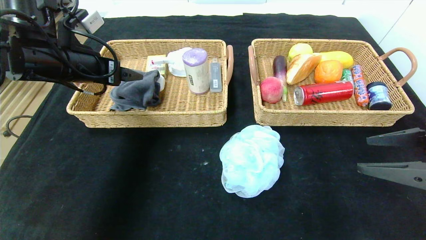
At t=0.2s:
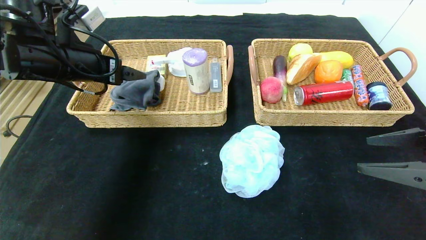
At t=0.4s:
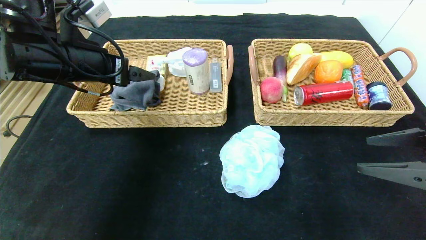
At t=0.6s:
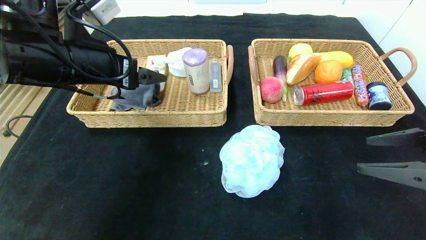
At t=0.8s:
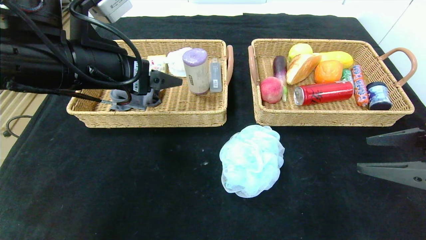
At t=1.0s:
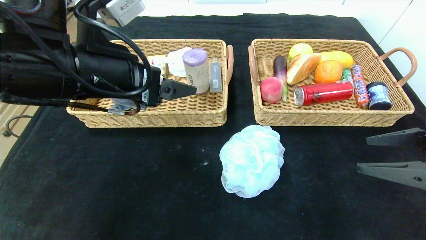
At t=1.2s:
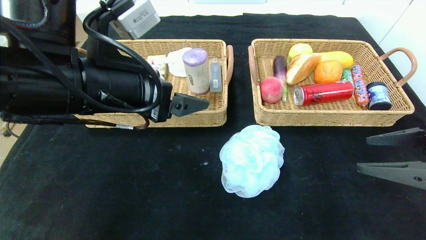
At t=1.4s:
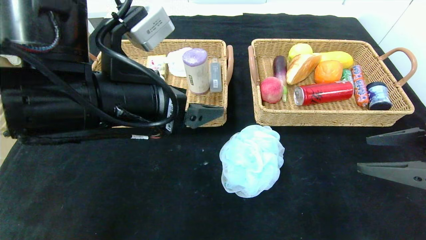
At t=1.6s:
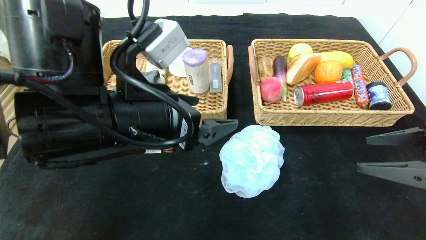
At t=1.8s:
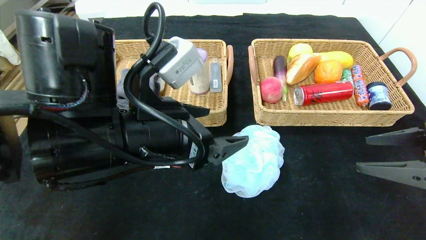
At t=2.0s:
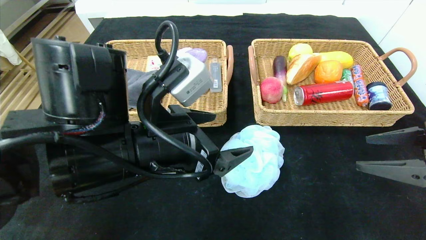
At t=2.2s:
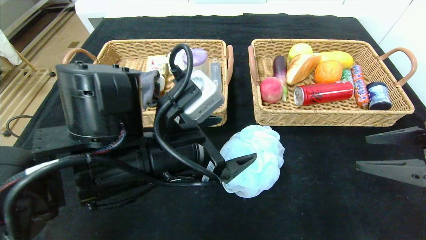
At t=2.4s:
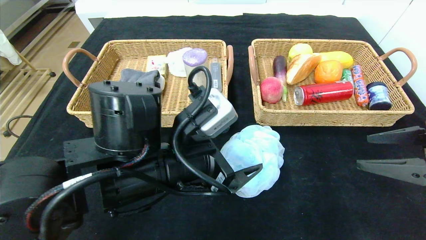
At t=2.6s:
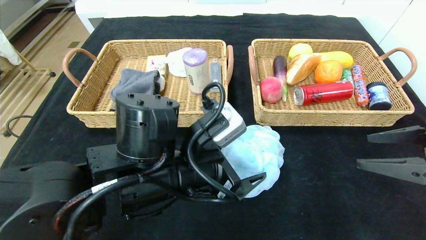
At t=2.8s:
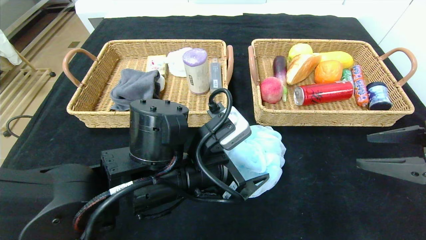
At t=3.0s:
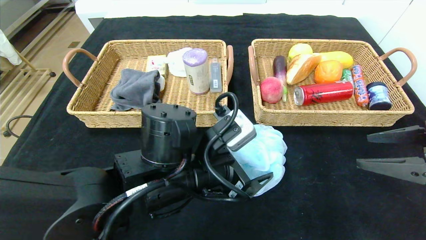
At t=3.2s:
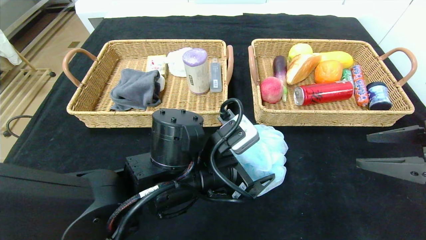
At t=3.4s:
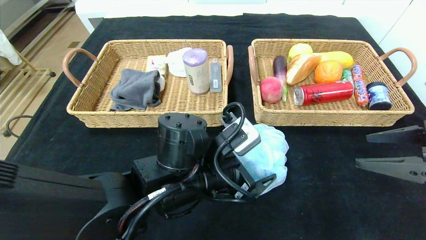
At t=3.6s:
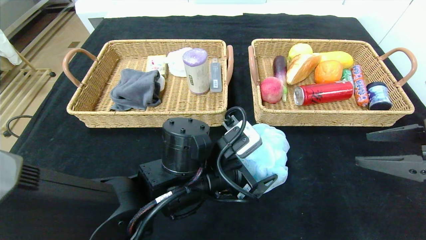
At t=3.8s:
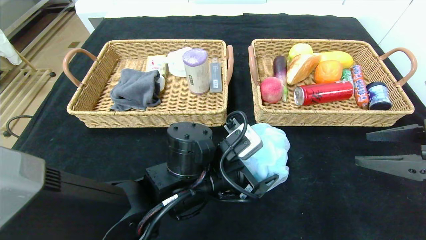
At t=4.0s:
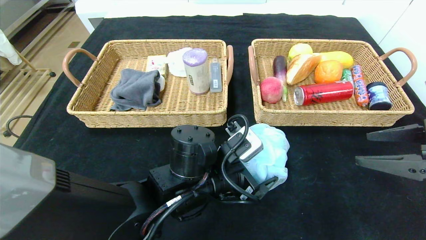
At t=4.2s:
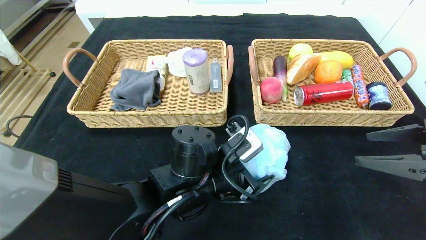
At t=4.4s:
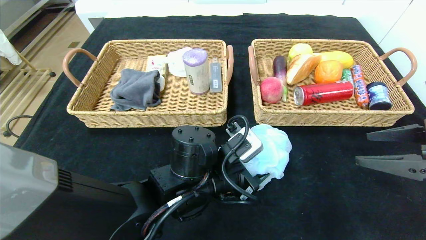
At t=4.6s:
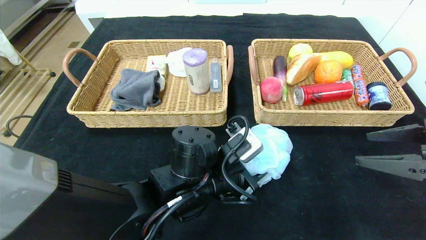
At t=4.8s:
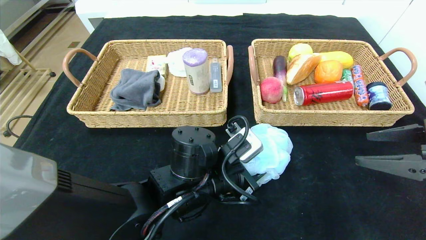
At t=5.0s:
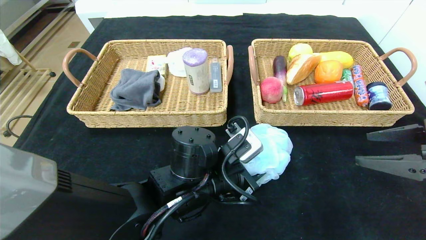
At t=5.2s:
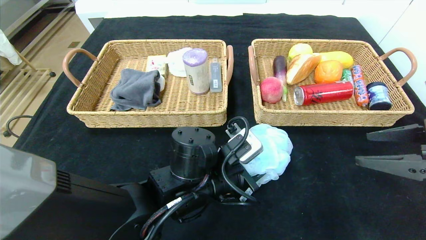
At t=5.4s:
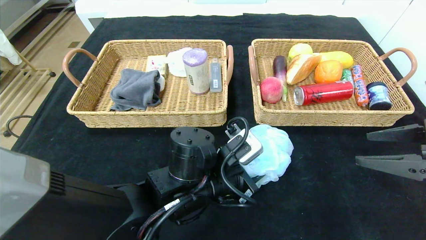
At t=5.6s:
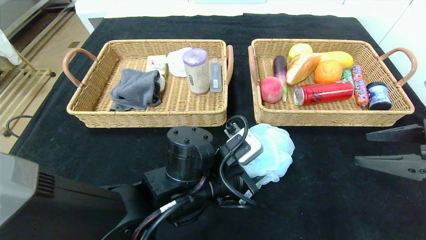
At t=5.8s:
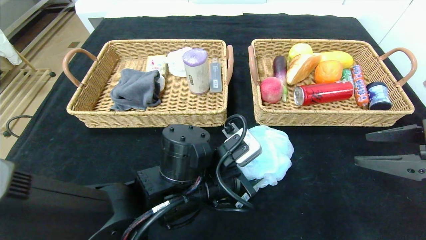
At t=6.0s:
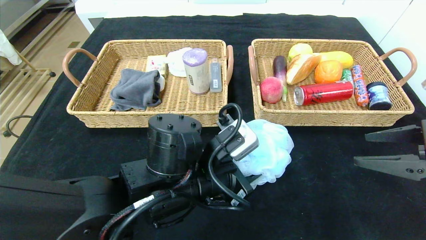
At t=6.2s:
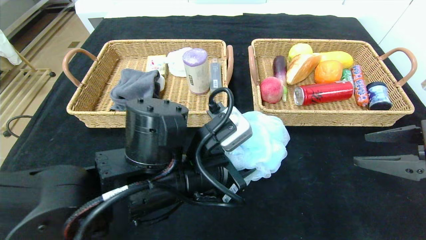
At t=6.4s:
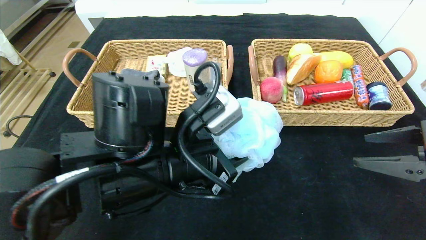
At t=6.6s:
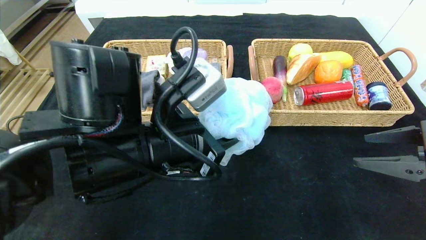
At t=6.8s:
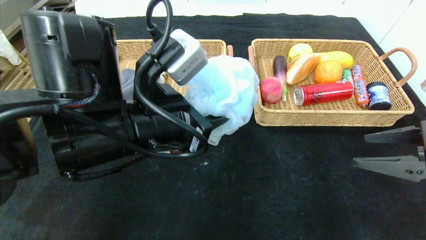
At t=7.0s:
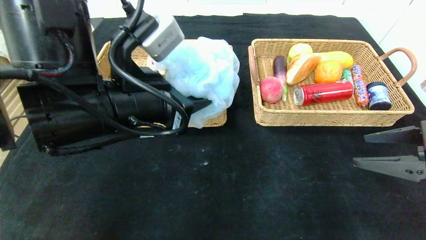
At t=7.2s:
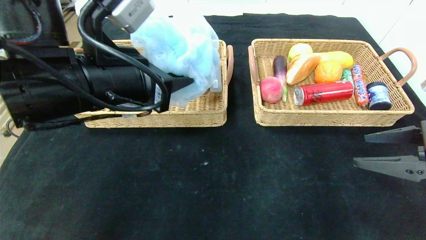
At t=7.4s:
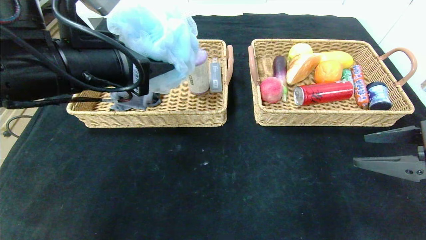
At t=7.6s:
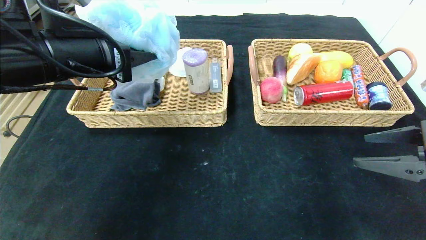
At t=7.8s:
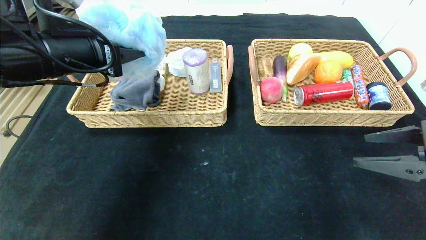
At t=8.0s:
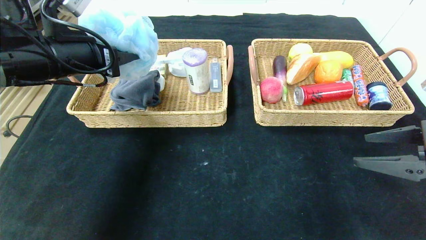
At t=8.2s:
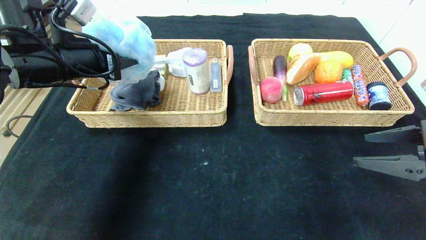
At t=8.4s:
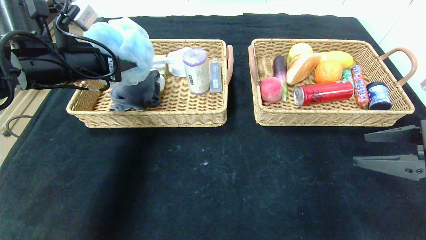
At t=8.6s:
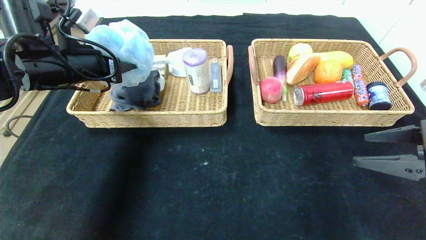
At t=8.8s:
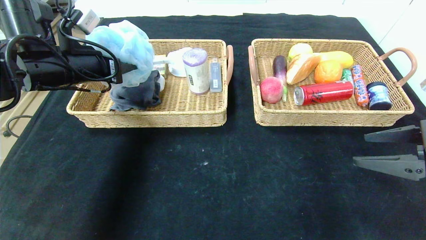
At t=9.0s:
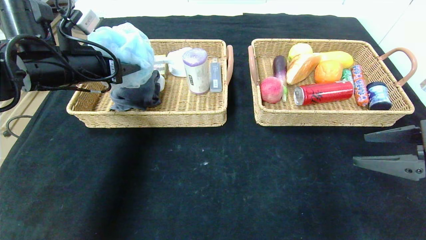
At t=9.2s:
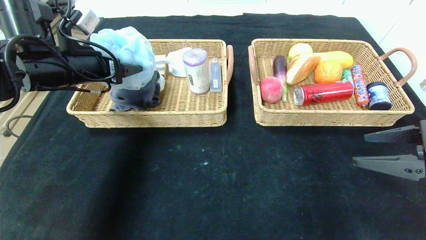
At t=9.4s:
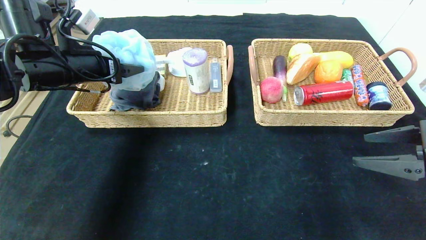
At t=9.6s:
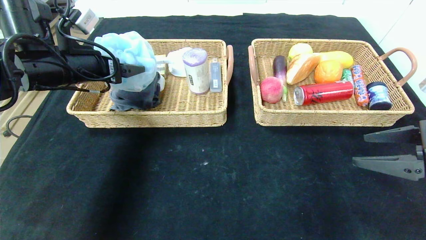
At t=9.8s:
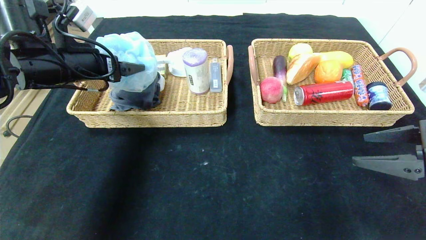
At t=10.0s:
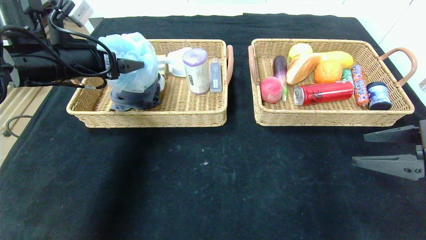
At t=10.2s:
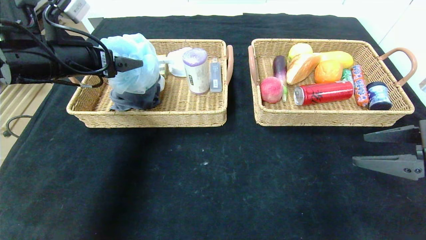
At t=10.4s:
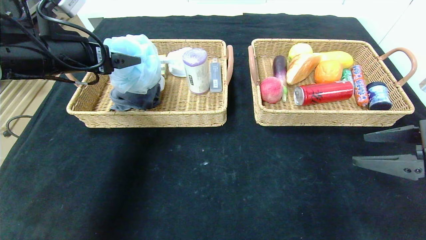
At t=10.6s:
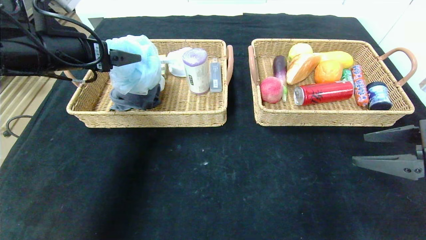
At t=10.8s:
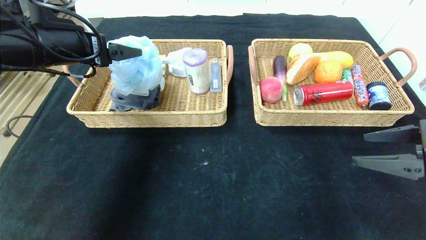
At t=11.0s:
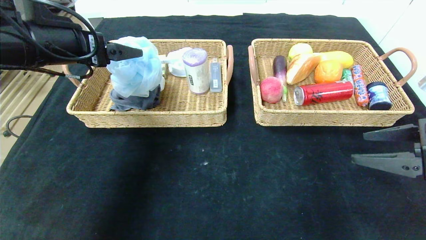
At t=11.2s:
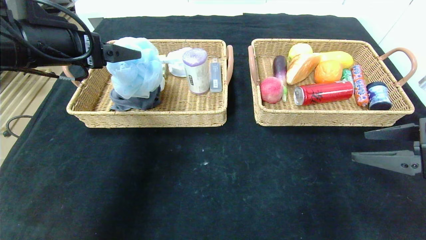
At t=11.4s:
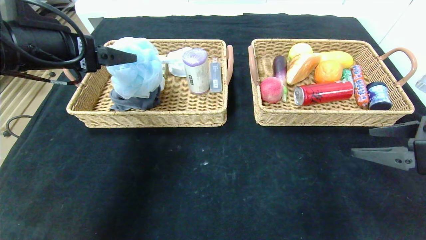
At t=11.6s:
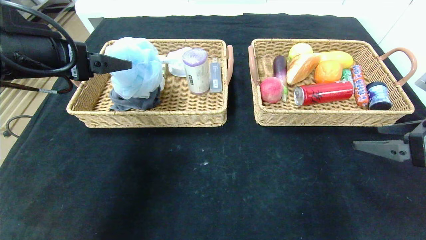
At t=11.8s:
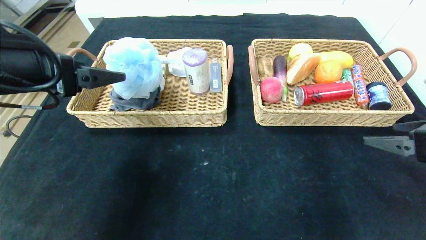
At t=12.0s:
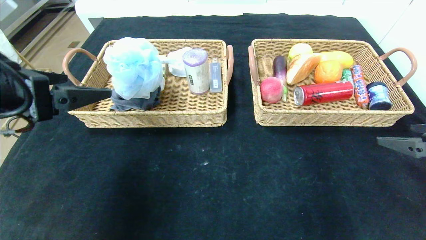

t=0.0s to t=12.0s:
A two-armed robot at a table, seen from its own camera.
Step, t=0.0s to t=10.6s: Grasp the bath ball and put it in the left basket.
t=0.0s to t=1.6s: The left gripper goes approximately 20 cm to the right and backward.
t=1.6s to t=3.0s: The left gripper is displaced downward and to the right by about 10 cm.
t=3.0s to t=4.4s: The left gripper ends up about 5 cm from where it was, and closes up.
t=4.4s to t=6.0s: There are only small adjustments of the grippers.
t=6.0s to t=7.6s: The left gripper is displaced upward and to the left by roughly 25 cm.
t=7.6s to t=9.0s: The left gripper moves forward and to the left, some 10 cm.
t=9.0s to t=10.4s: The left gripper opens up.
t=10.4s to t=12.0s: The left gripper heads backward, covering about 15 cm.

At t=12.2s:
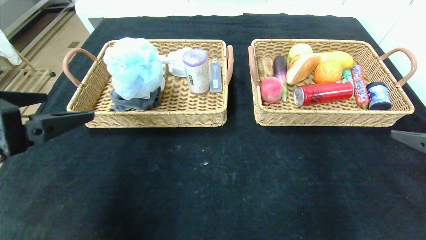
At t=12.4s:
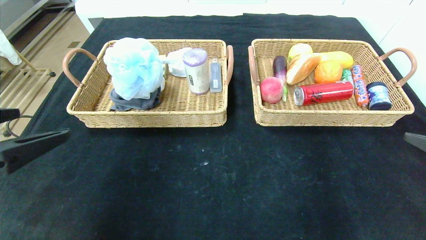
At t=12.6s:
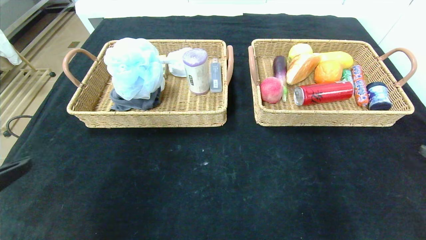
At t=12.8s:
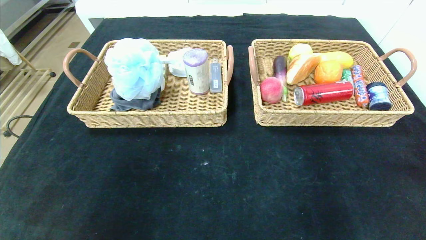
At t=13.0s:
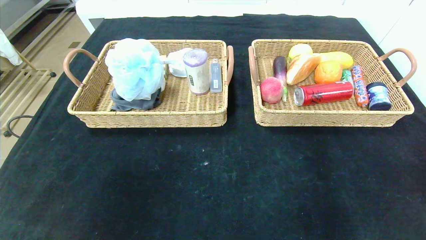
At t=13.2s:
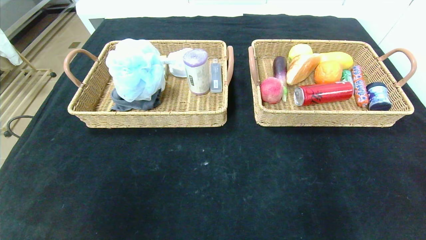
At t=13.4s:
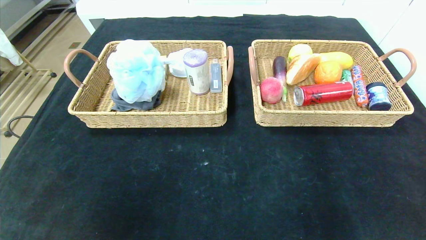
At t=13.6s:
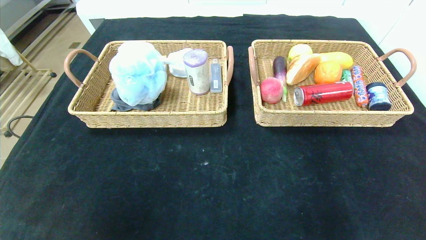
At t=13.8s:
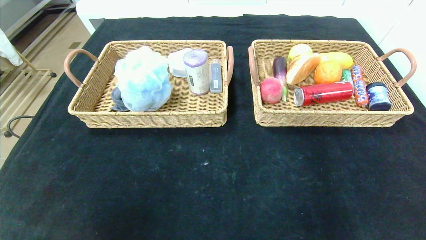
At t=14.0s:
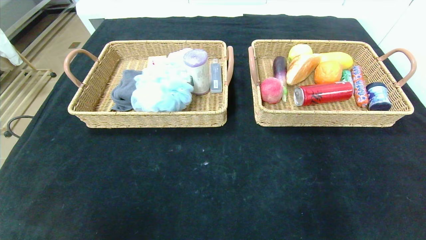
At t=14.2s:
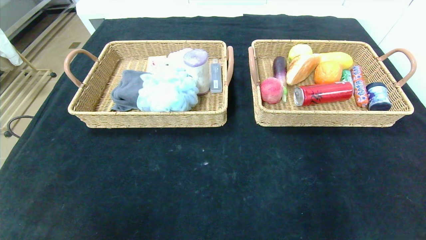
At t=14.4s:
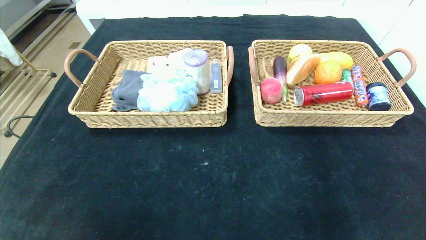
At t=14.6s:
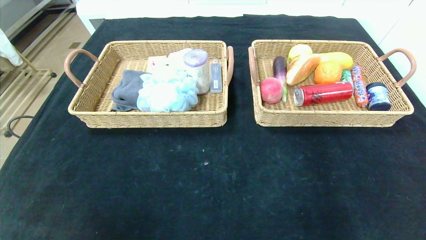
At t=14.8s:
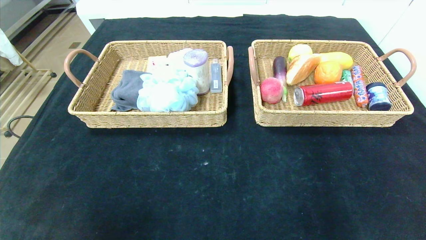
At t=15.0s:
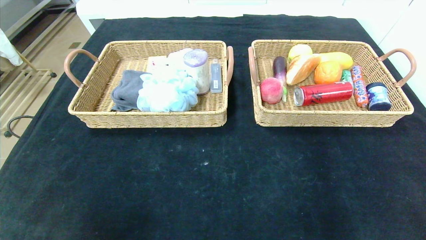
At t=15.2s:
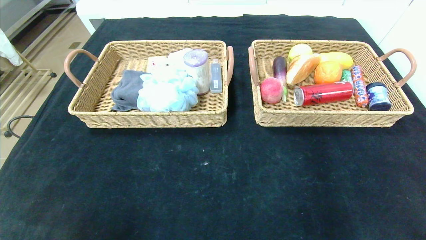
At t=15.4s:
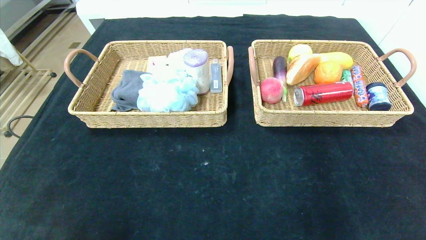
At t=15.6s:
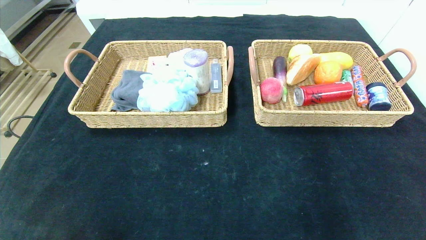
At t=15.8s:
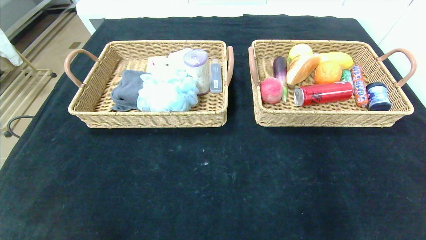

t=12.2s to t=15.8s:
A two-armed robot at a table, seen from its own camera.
t=12.2s to t=14.0s: The left gripper goes approximately 25 cm backward and downward. Meanwhile the right gripper shifts about 25 cm backward.
t=14.0s to t=15.8s: The left gripper heads downward and forward, covering about 15 cm. Meanwhile the right gripper goes approximately 15 cm downward.
